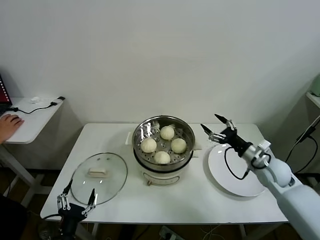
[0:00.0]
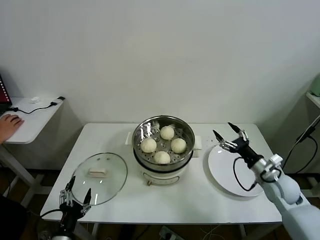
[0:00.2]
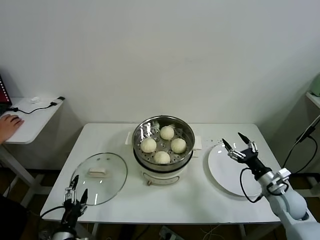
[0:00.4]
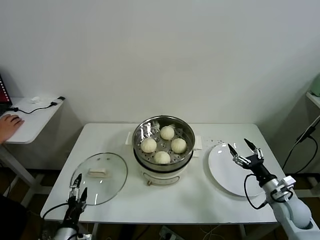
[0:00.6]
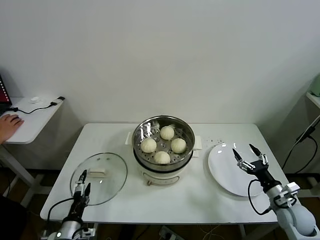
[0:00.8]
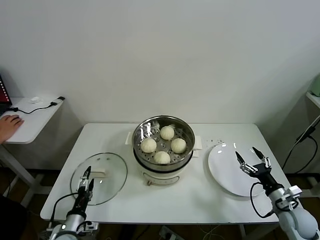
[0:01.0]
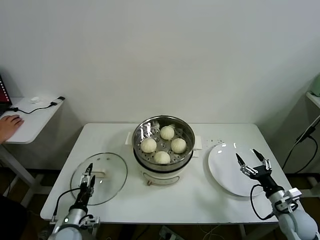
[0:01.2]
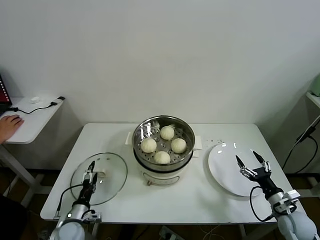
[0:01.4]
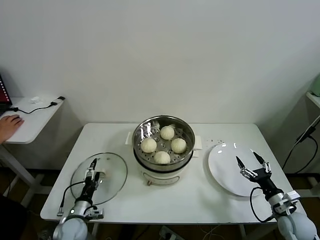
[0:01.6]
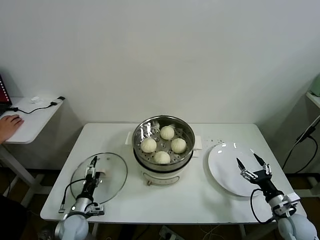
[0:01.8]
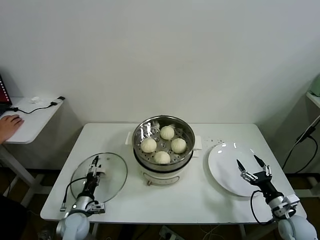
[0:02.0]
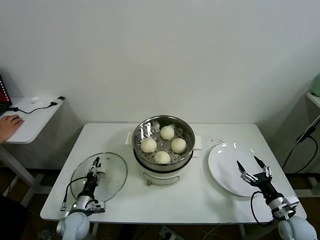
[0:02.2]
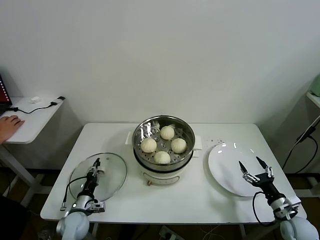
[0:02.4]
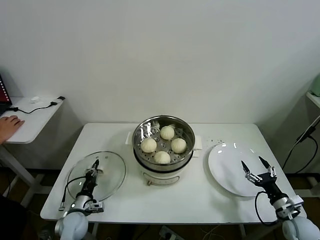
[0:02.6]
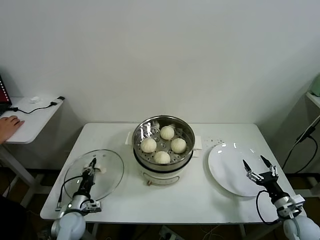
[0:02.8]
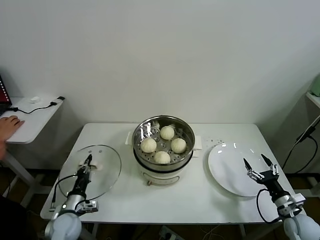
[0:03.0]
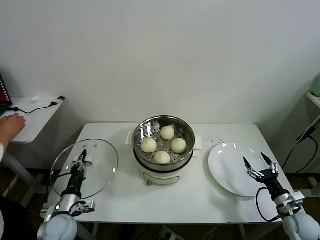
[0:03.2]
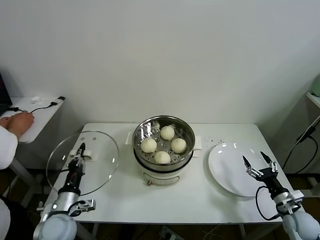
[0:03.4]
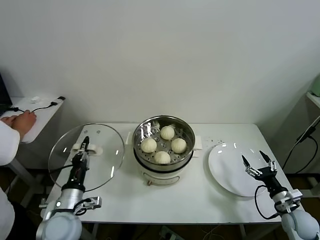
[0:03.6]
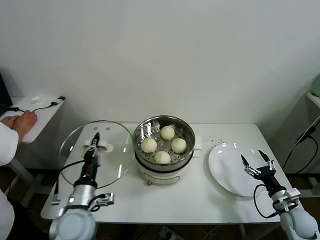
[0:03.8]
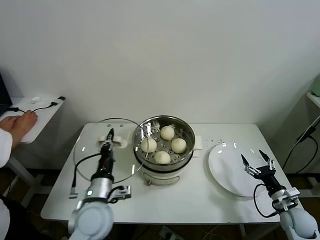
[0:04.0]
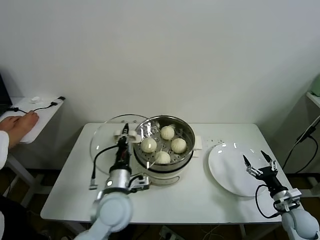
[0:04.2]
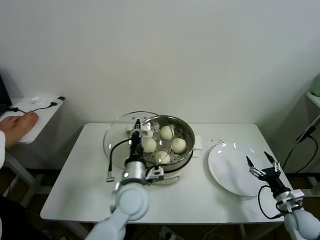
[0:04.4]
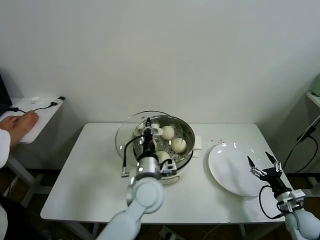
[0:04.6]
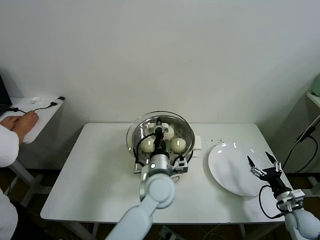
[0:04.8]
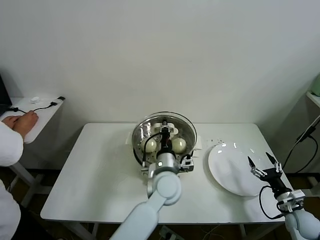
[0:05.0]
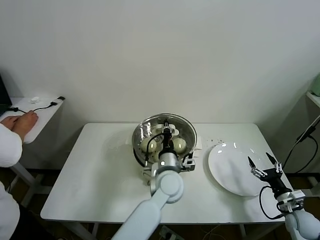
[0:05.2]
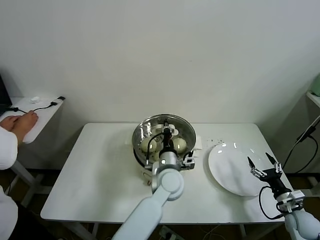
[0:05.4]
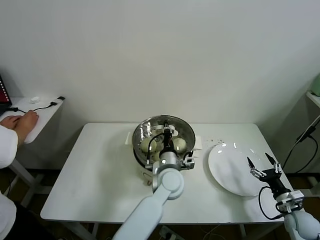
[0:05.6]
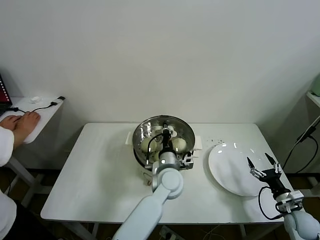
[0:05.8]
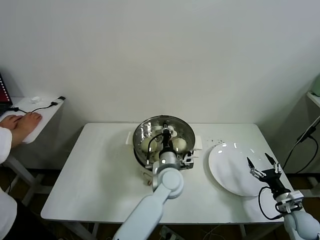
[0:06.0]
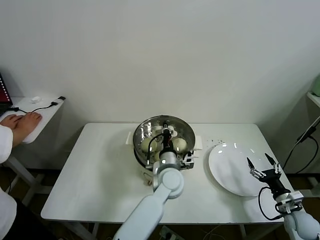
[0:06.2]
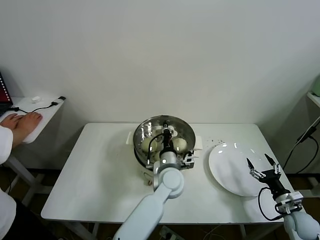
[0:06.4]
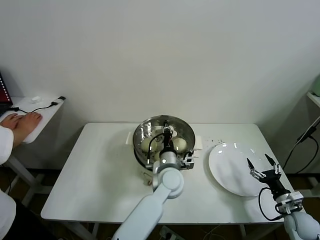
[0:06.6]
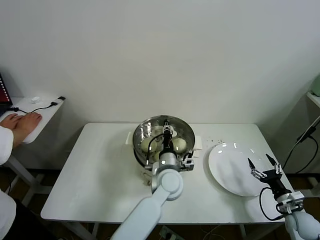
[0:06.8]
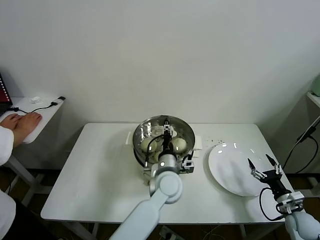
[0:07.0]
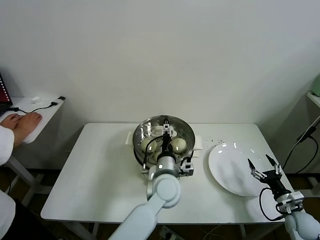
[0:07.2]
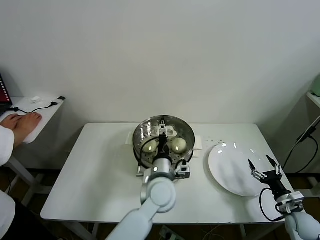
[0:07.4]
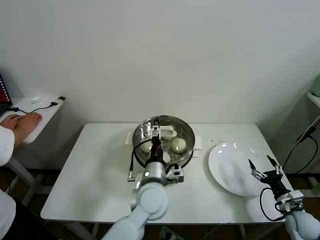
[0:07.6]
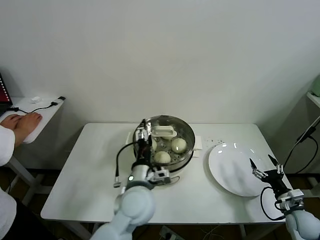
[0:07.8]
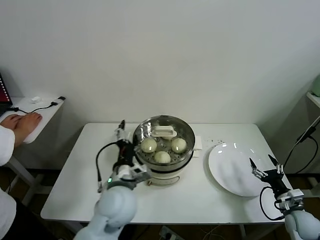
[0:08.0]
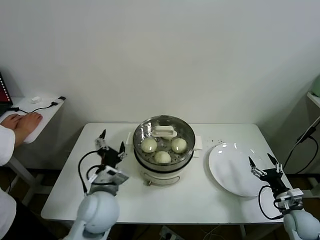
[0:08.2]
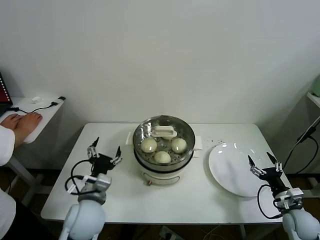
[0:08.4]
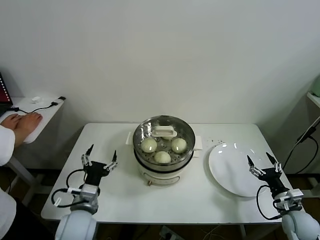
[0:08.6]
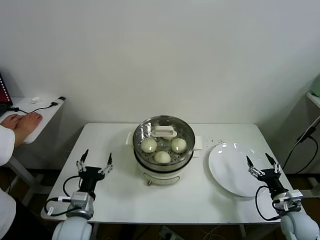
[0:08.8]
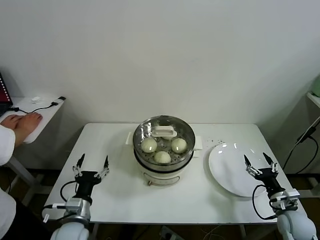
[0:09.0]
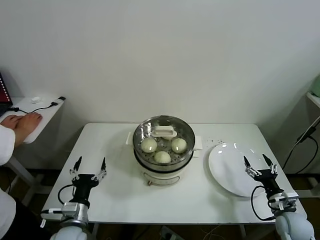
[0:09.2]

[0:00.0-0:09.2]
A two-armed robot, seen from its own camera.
Task of the whole recording: take steamed baozi put them in steamer.
Step, 0:00.0 to 0:02.6: Grasp the pot lid with left gripper.
Step, 0:02.8 to 0:07.2: Place the pot lid on the steamer with left gripper.
0:00.0 to 0:01.6: The right gripper heads backward, downward and to the right, covering approximately 20 cm. Meanwhile the left gripper goes roughly 20 cm forward and downward.
0:01.6 to 0:03.0: The left gripper closes its fingers.
0:03.0 to 0:04.6: The left gripper goes roughly 35 cm to the right and upward.
0:04.6 to 0:06.2: The left gripper shifts some 10 cm to the right, forward and downward.
0:06.2 to 0:07.6: The left gripper shifts about 5 cm backward, and opens.
0:07.6 to 0:09.2: The left gripper travels to the left by some 25 cm. Meanwhile the right gripper ends up some 5 cm from where it was.
